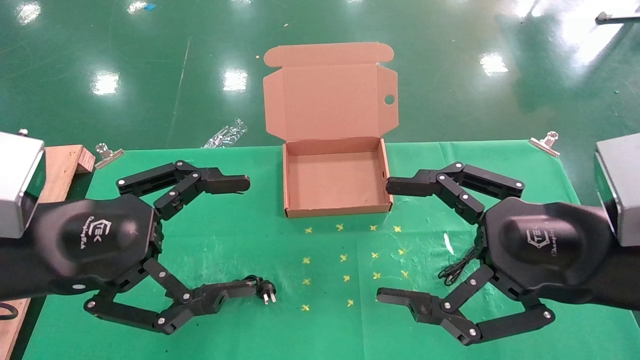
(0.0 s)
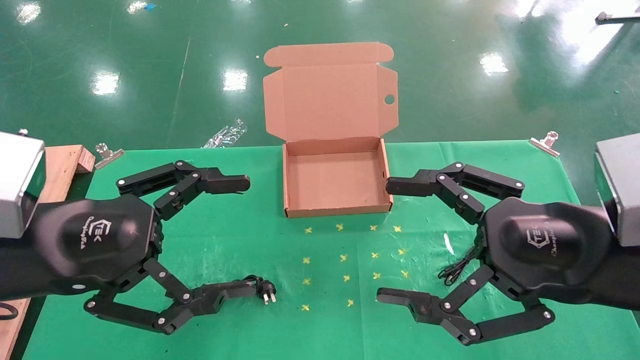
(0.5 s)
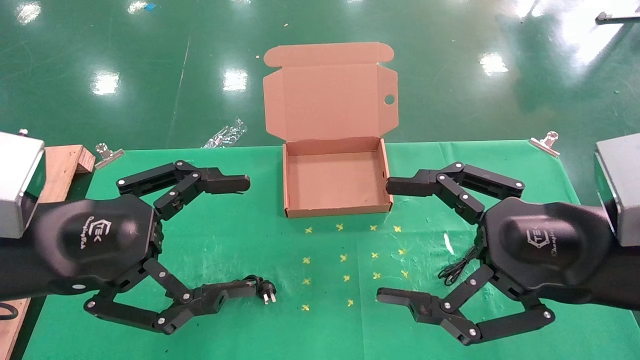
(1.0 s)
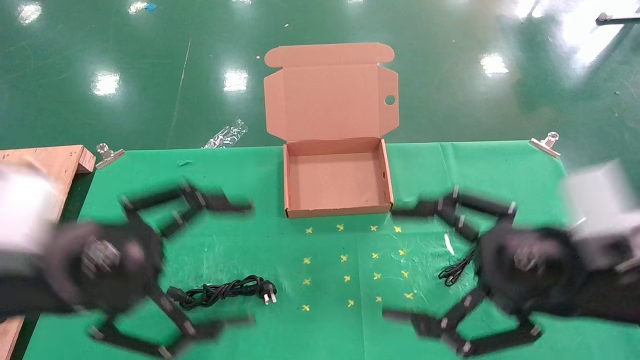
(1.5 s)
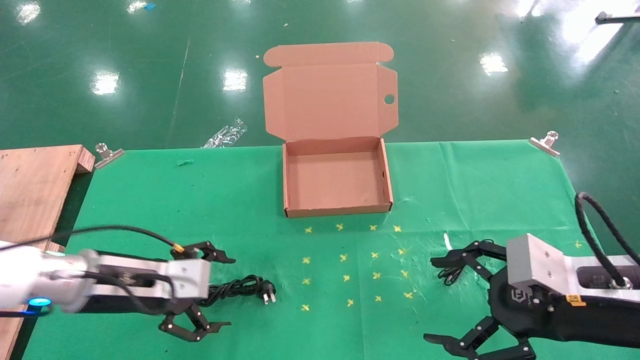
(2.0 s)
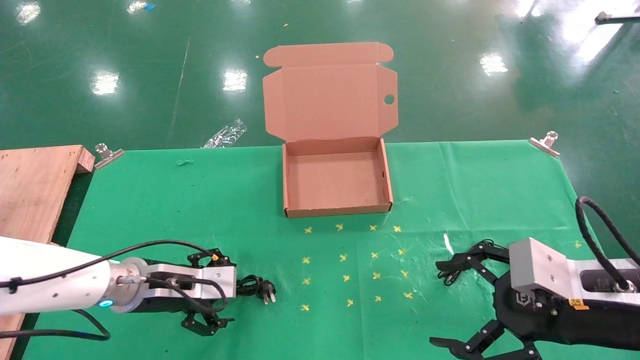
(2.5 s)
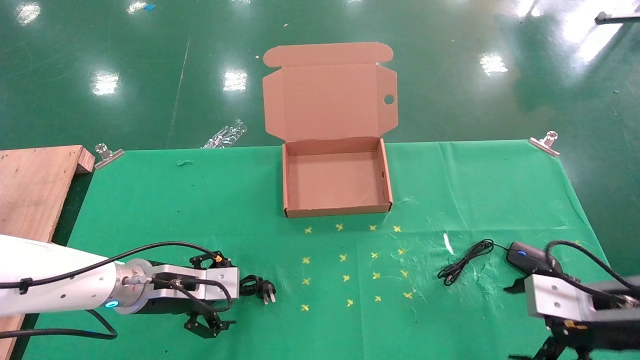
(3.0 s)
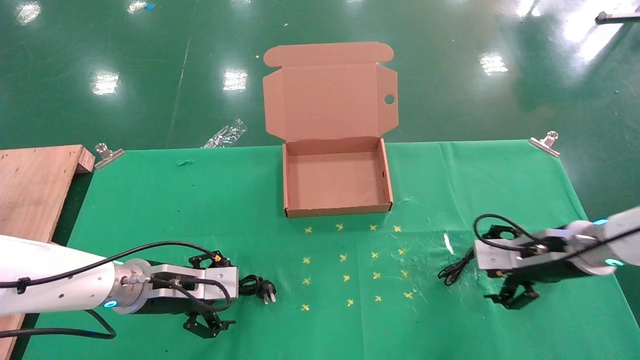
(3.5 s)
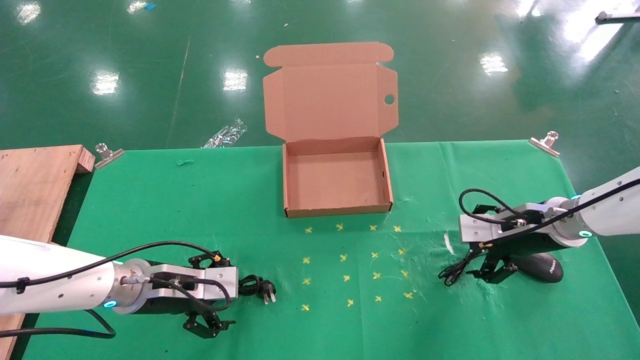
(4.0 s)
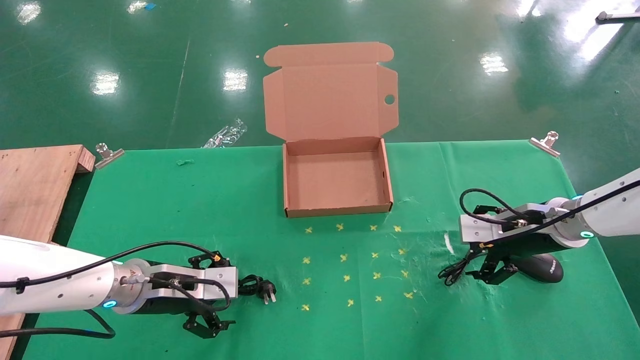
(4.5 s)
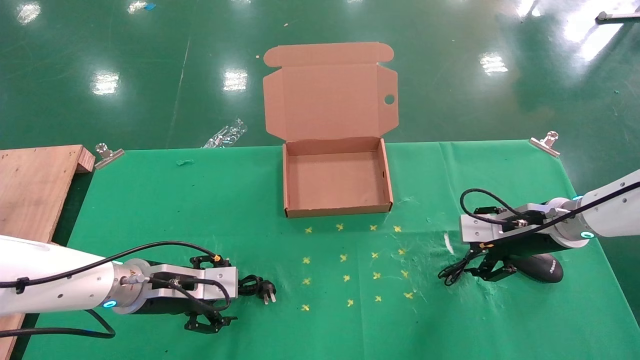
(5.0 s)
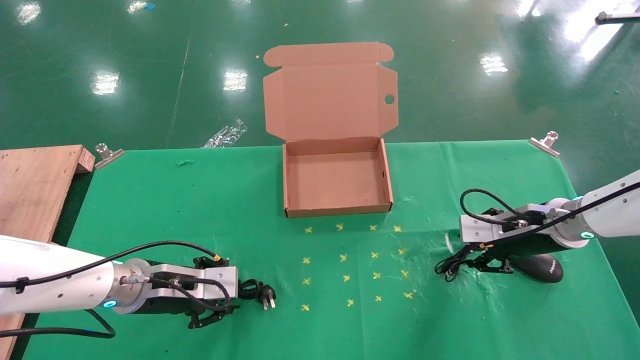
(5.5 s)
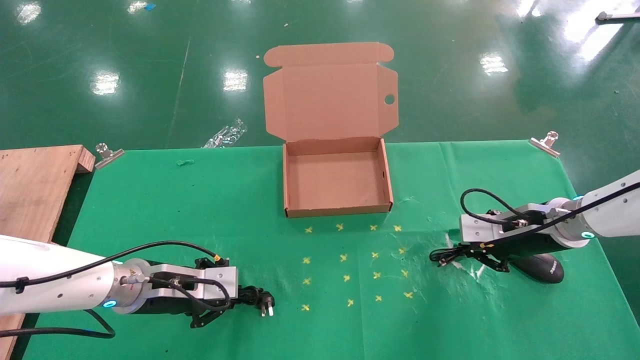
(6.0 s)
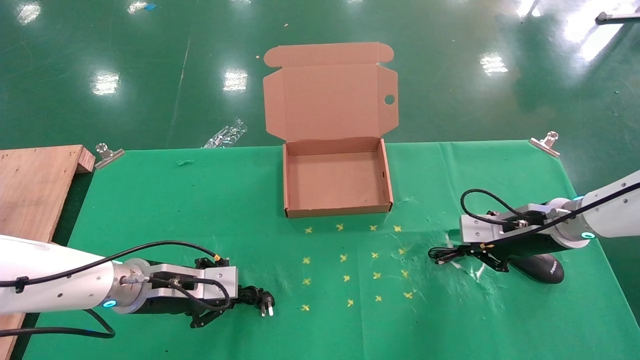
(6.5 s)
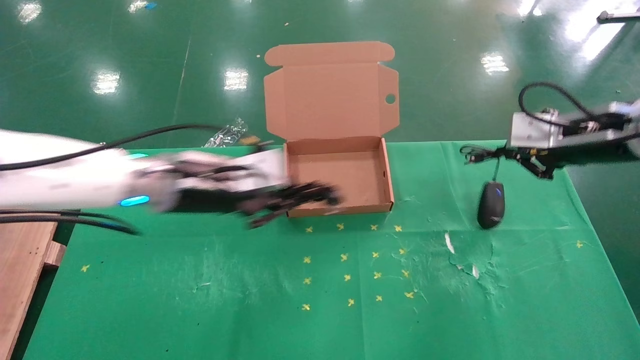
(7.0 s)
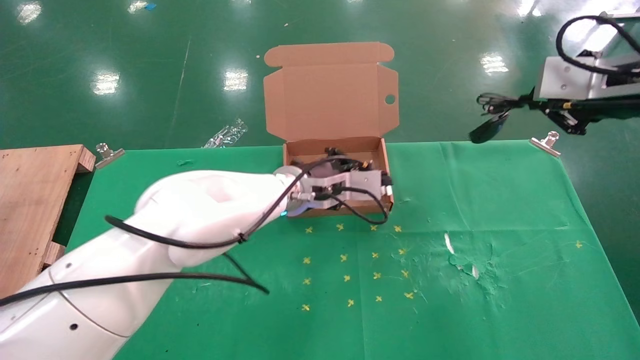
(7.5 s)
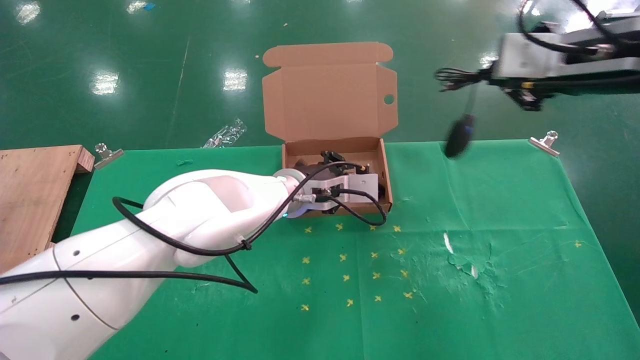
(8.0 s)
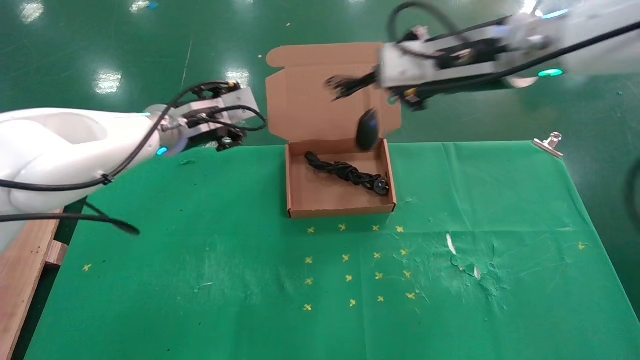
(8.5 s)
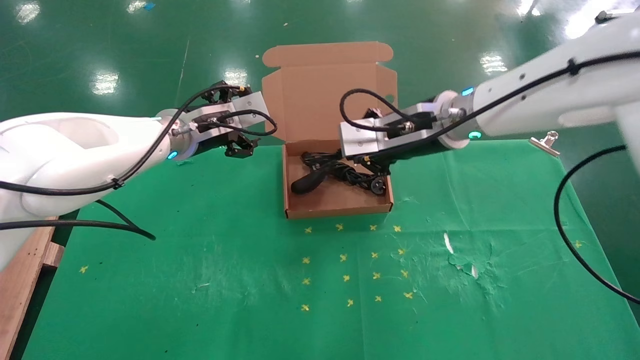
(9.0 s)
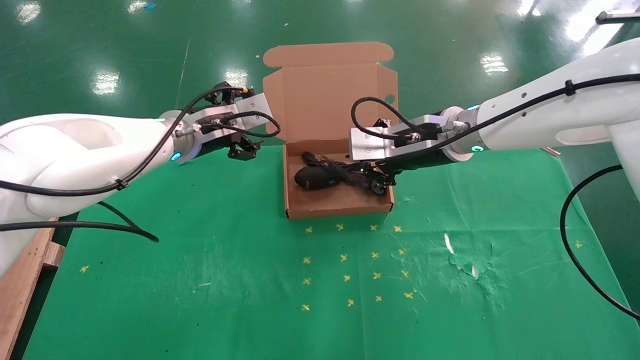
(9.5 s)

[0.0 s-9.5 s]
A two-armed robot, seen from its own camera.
Task of the whole recording: grasp data cable left put into box grasp mouse right put into box.
Step, 1.5 to 6.0 s: Simultaneously pick up the mouse and power cord from the accessory packaging area.
0.0 to 2.0 s: The left gripper goes some 15 cm downward and forward; the right gripper heads downward, covering roughly 5 cm.
2.0 to 4.0 s: The right gripper shifts approximately 20 cm forward; the left gripper moves some 5 cm.
4.0 to 5.5 s: The right gripper closes its fingers, while the left gripper closes.
5.5 to 7.5 s: The left gripper heads to the right, upward and forward, covering about 25 cm, and closes its fingers. Meanwhile the right gripper heads upward, covering approximately 20 cm, and closes up.
7.5 to 9.5 s: The left gripper shifts some 15 cm to the left and upward, and opens up. The right gripper moves to the left, forward and downward, about 25 cm.

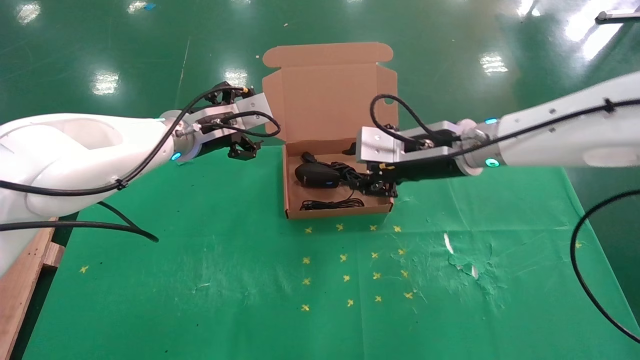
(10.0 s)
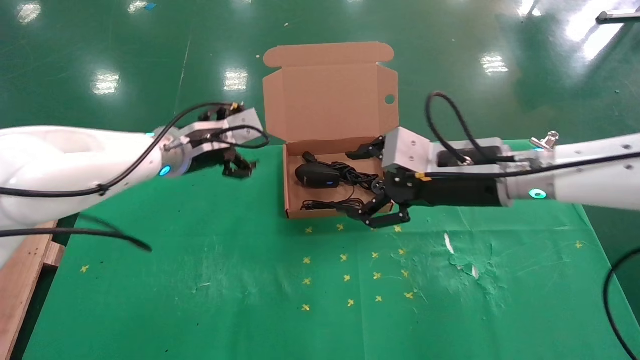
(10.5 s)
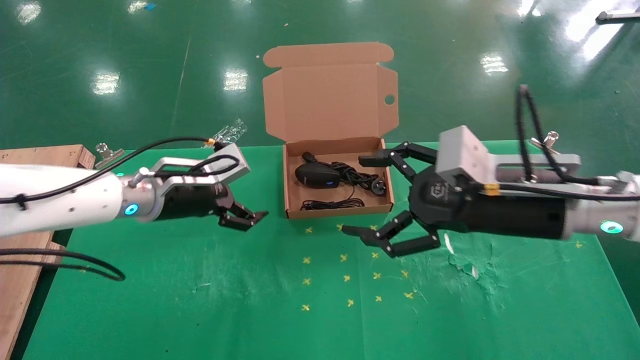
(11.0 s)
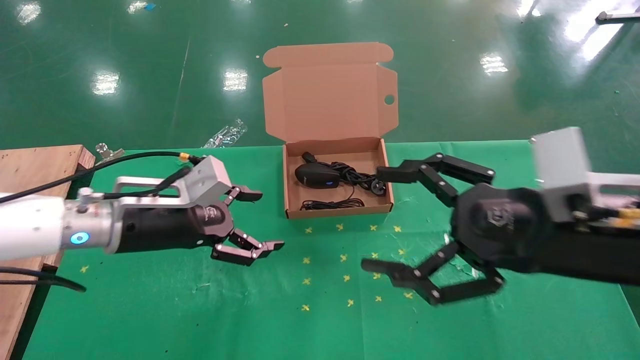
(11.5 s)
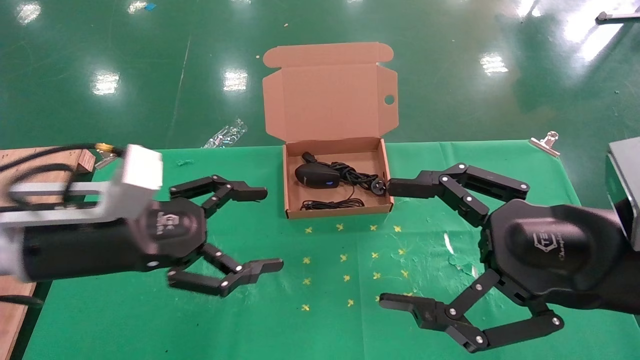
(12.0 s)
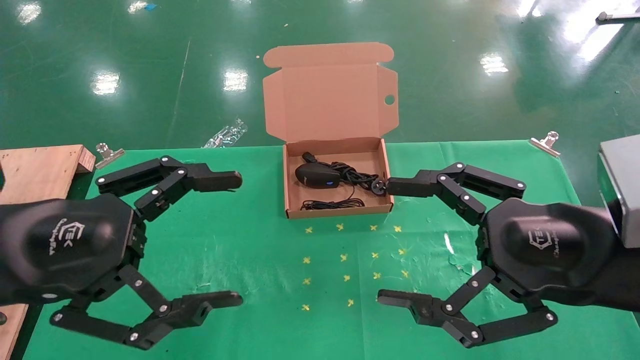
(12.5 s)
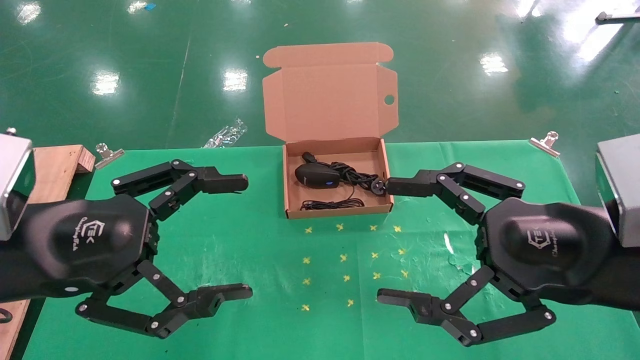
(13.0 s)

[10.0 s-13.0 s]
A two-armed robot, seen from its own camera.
Task of the whole recording: grasp data cable left put into box grasp mouse right put into box.
10.0 to 11.5 s: The left gripper moves backward, downward and to the left, about 15 cm. The right gripper heads backward and to the right, covering roughly 20 cm, and opens its fingers.
11.5 to 13.0 s: The left gripper goes some 15 cm backward and upward.

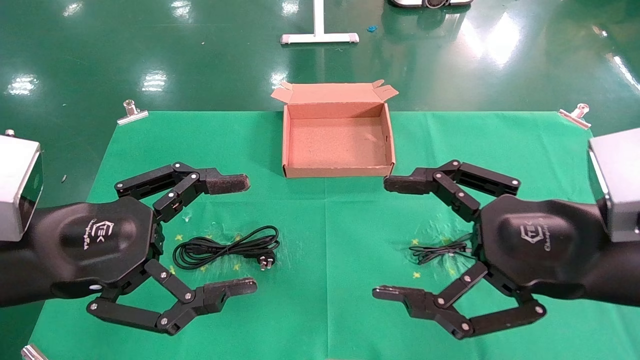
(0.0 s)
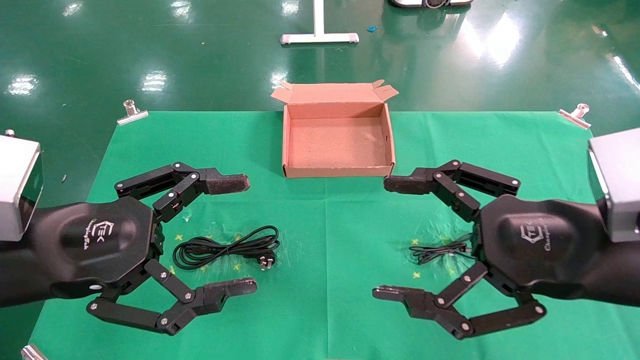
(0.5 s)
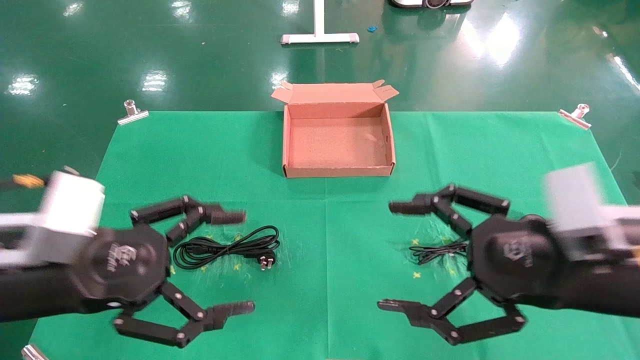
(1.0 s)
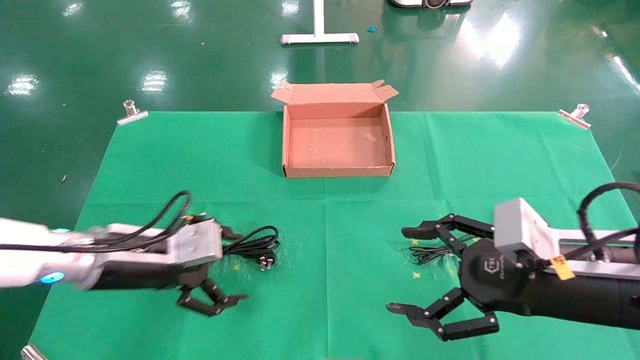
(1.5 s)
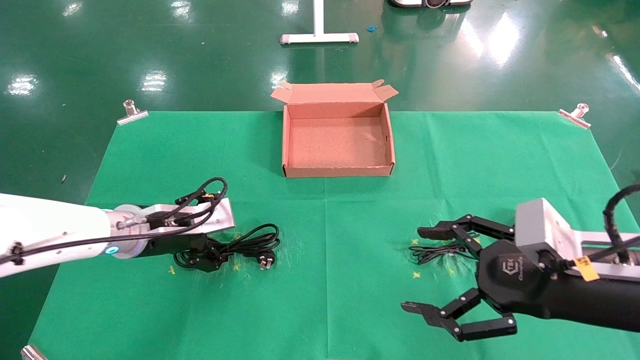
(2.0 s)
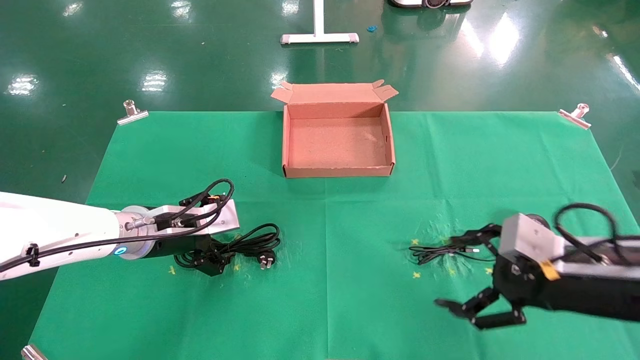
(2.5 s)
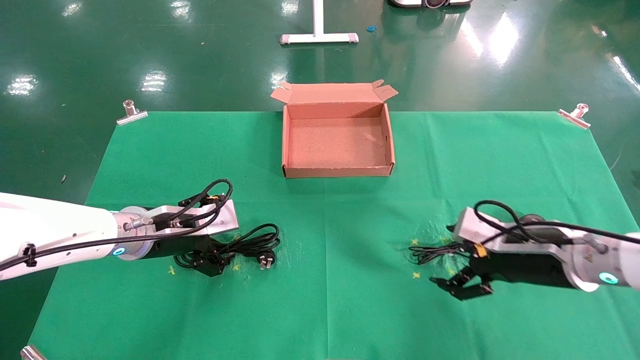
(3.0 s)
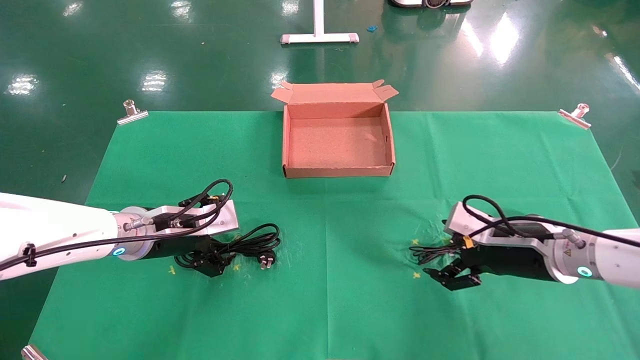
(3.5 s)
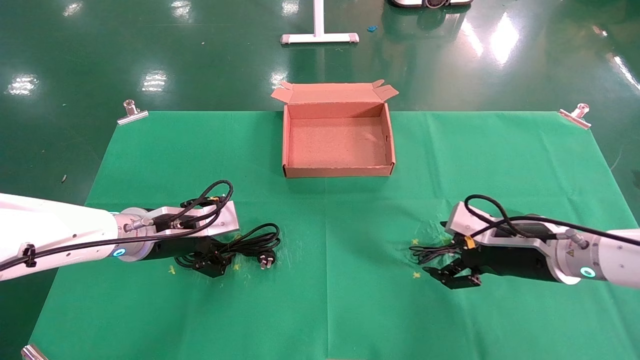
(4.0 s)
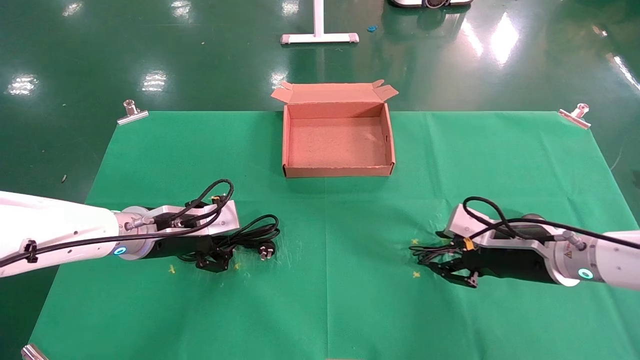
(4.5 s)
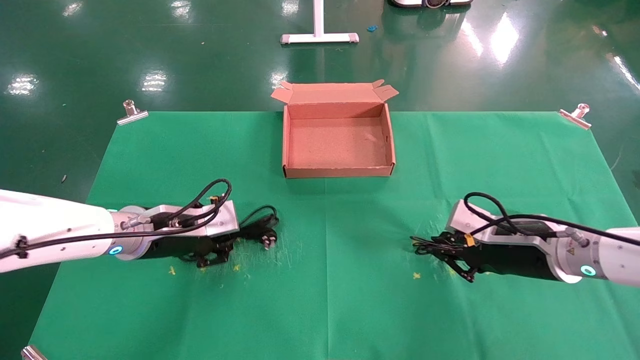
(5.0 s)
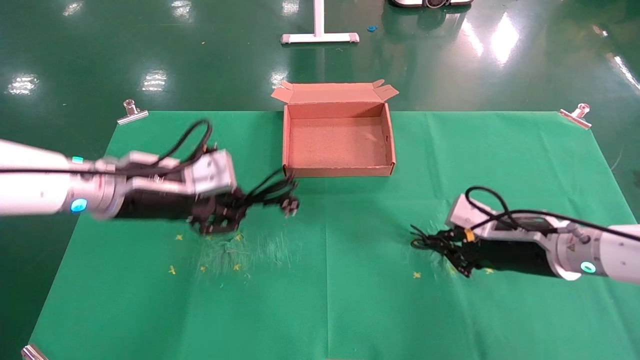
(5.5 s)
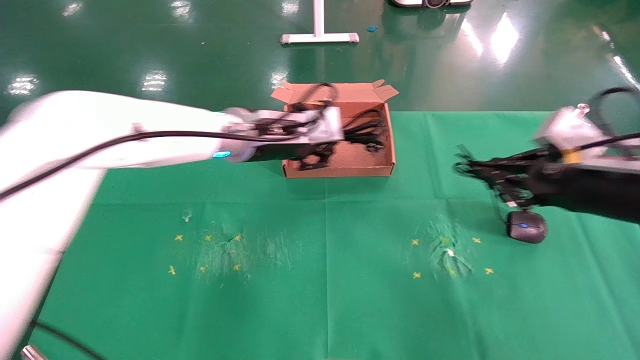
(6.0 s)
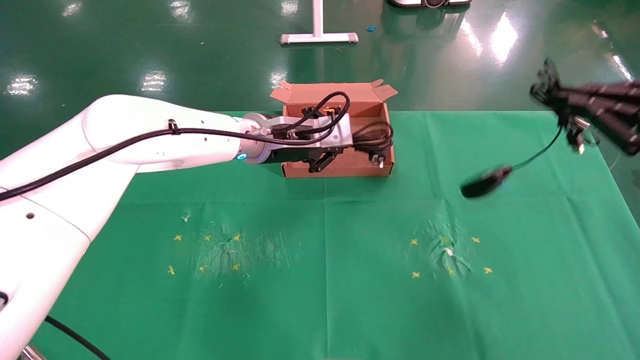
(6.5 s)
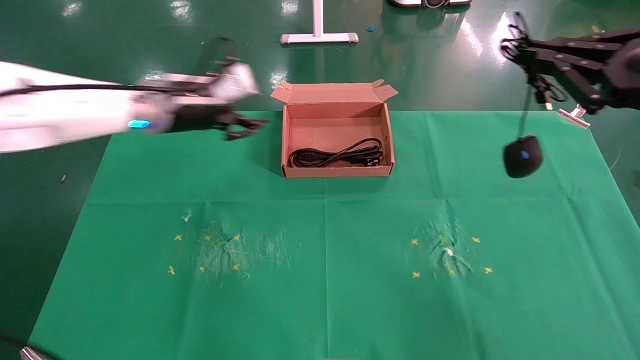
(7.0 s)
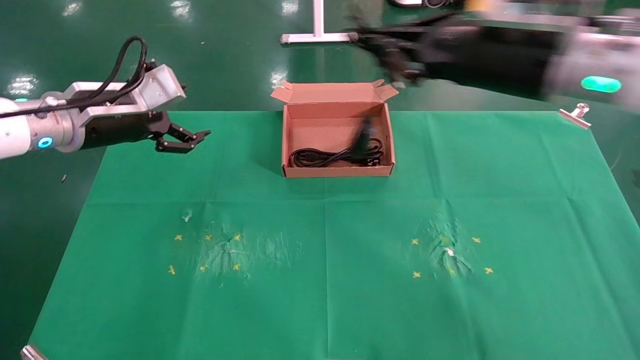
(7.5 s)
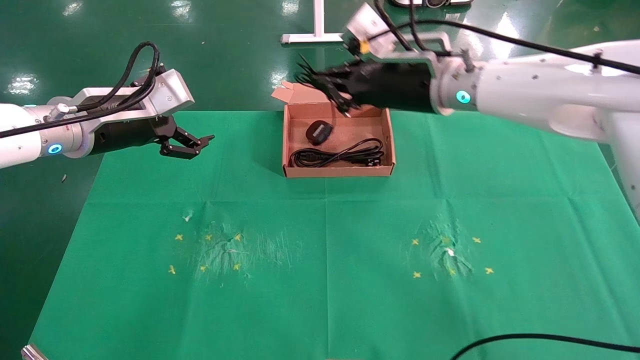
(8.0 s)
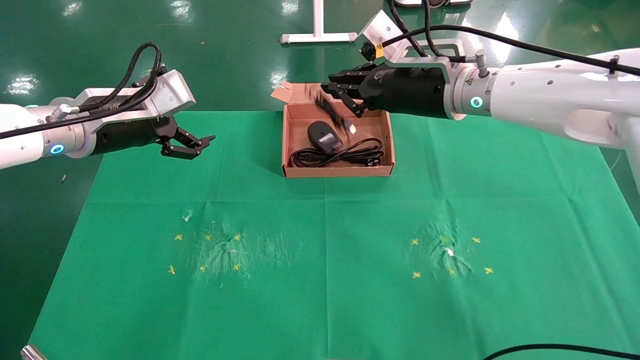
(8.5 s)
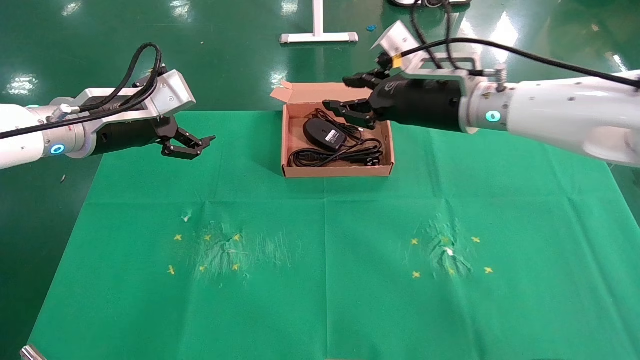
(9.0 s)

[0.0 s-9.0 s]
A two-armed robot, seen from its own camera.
Task of the whole recording: grasp data cable left put into box grasp mouse right put into box.
Step, 1.0 to 5.0 s: Simultaneously pick up the mouse and power cord from the accessory packaging area.
Step, 5.5 to 8.5 s: Place the mouse and power cord into the box.
0.0 to 2.0 s: The right gripper moves downward, approximately 5 cm. Meanwhile the left gripper moves forward and downward, some 20 cm.
2.0 to 4.5 s: The left gripper closes; the right gripper shifts roughly 15 cm forward and downward, and closes its fingers.
4.5 to 7.0 s: The left gripper goes approximately 15 cm upward and forward, and reaches some 15 cm to the right, then returns. The right gripper goes some 25 cm upward and backward, and closes its fingers.
7.0 to 9.0 s: The left gripper is displaced backward and to the left by roughly 10 cm, and opens, while the right gripper goes roughly 25 cm to the left and forward.
